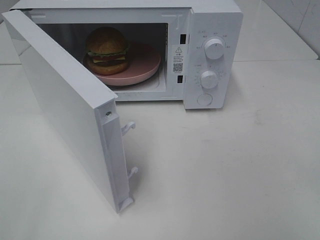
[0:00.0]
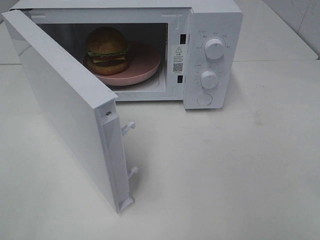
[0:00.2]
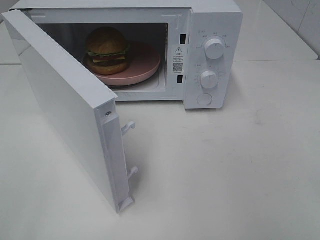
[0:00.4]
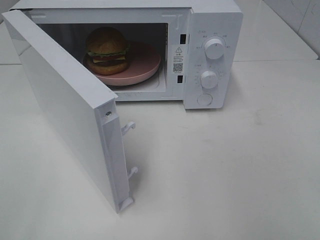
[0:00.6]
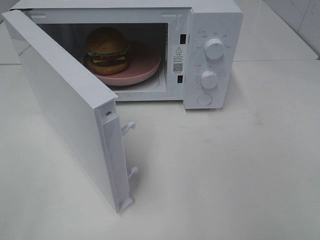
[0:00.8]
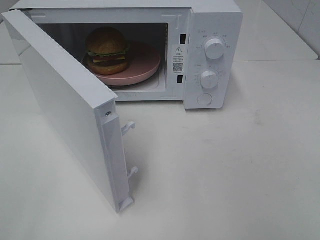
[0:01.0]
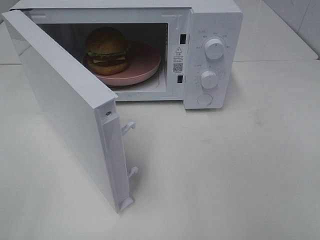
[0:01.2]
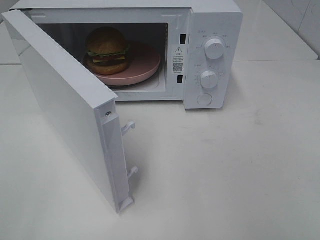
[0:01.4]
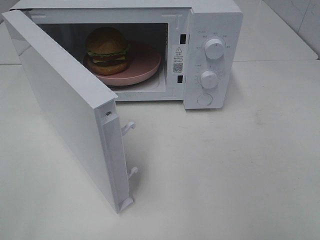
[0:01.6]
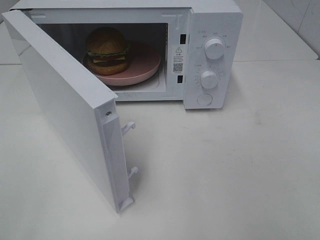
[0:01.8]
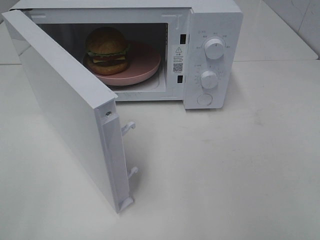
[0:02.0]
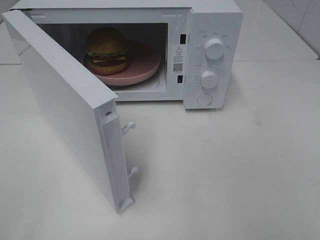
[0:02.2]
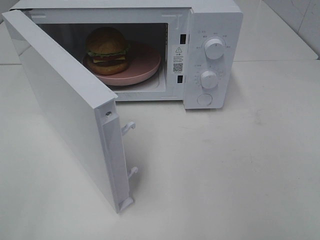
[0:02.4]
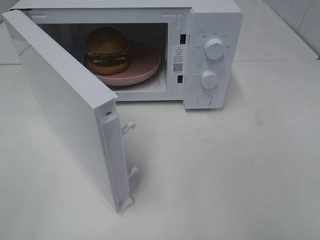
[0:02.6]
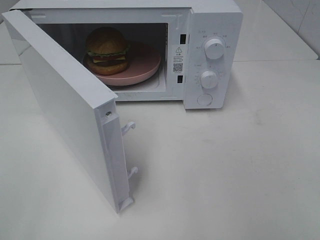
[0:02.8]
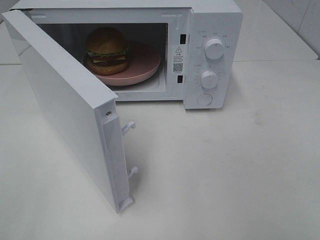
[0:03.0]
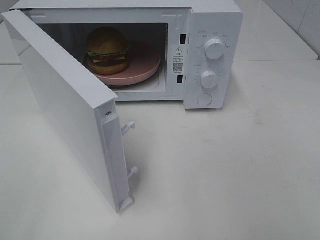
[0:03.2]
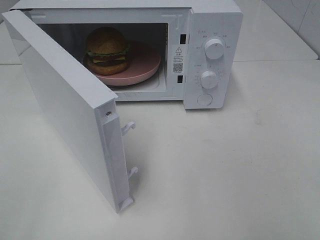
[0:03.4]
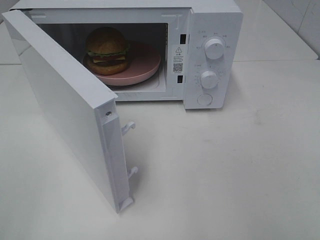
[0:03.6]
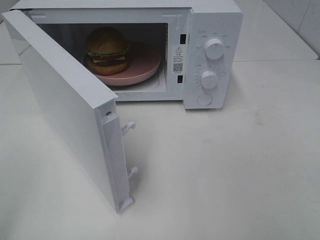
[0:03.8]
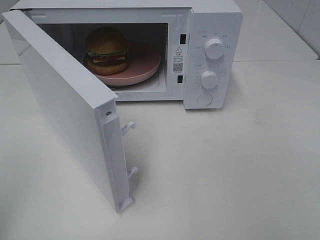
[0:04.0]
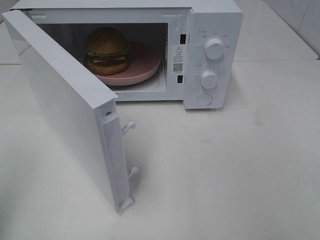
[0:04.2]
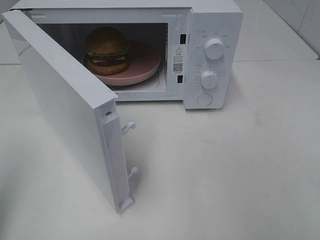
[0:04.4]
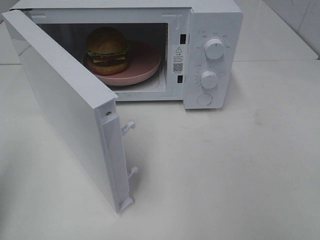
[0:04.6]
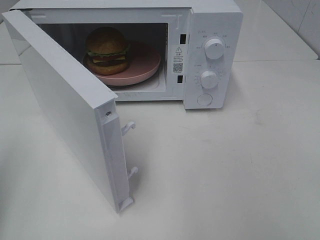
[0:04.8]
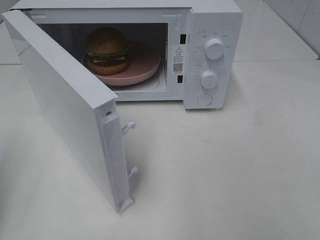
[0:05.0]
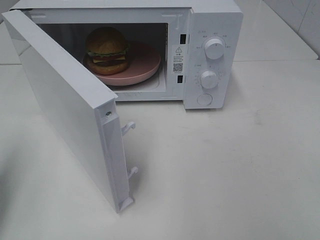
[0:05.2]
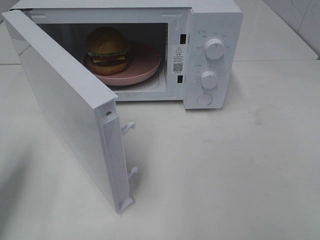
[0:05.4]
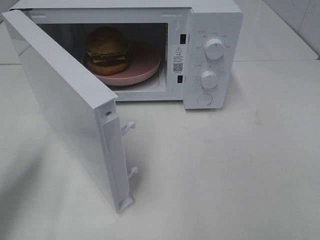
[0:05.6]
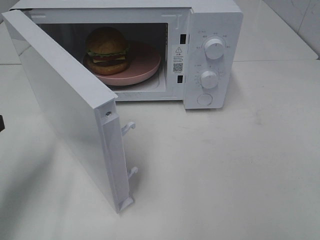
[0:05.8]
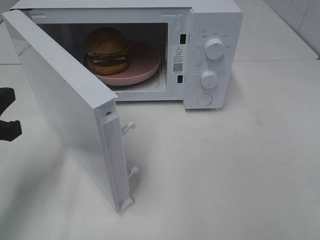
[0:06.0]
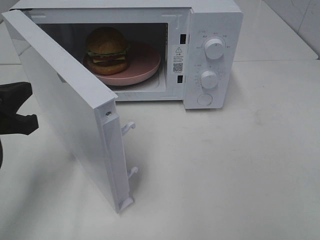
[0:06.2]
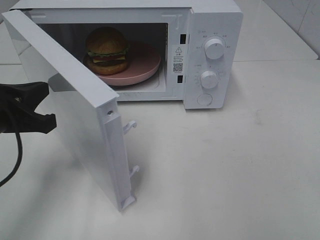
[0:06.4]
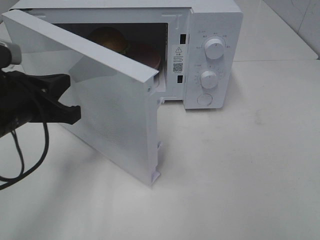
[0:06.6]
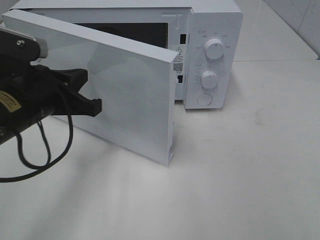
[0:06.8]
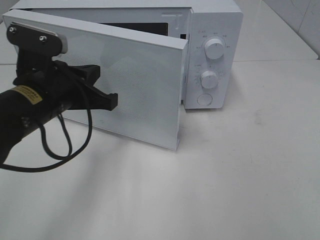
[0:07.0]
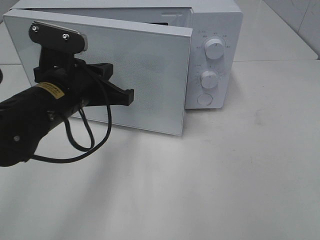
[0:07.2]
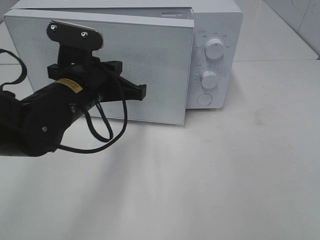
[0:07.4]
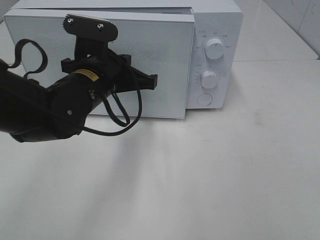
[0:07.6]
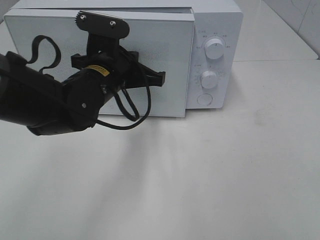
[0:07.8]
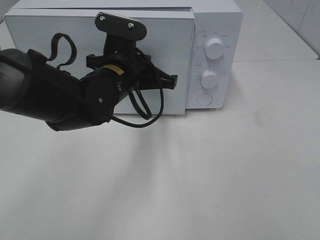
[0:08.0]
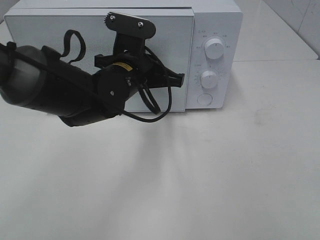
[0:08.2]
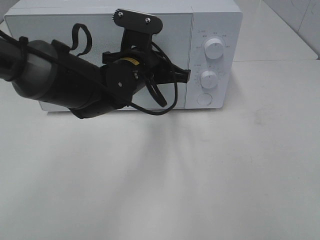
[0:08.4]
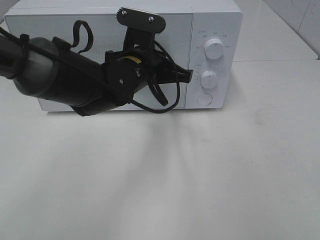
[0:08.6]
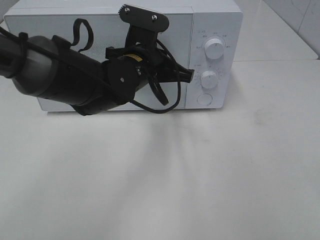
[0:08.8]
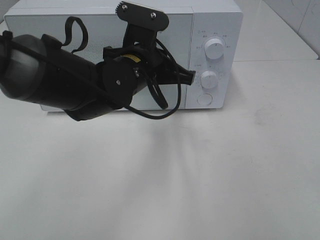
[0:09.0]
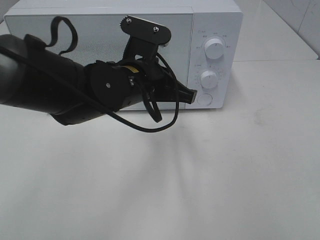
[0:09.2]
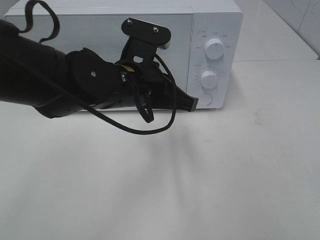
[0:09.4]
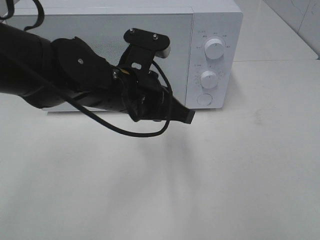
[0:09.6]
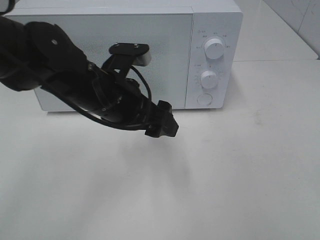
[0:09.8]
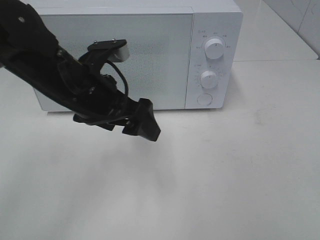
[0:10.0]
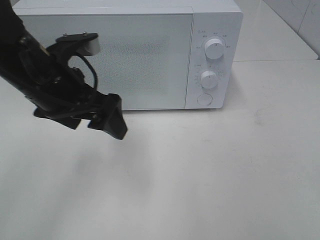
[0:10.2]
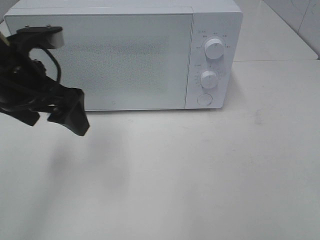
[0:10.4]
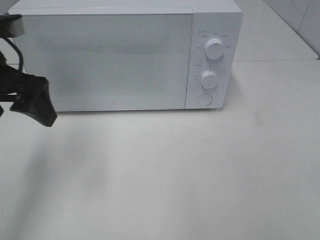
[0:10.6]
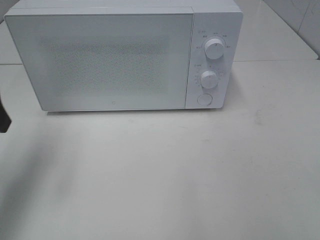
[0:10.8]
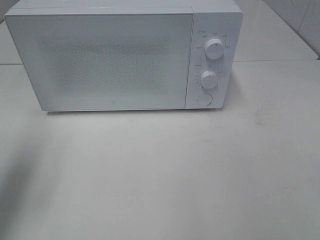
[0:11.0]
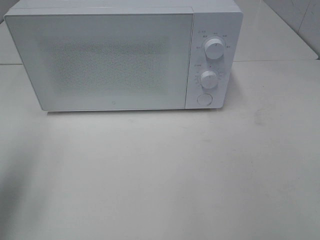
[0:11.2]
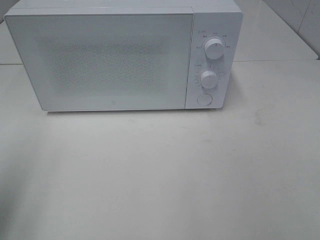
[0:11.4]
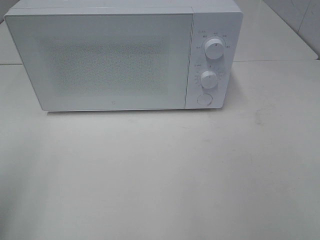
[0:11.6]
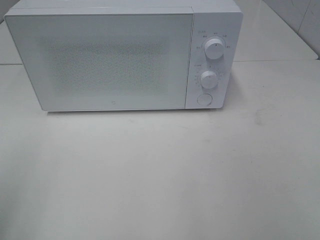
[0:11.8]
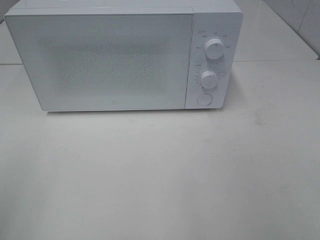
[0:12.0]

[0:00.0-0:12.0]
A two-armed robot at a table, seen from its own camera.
Task of the whole recording: Heat the burger.
Step, 0:00.0 to 0:09.4: Left hand: close the microwave door.
0:01.6 to 0:03.0: Neither gripper changes place.
0:04.4 to 0:06.0: The left gripper travels downward, forward and to the right by about 15 cm.
0:06.0 to 0:07.6: The left gripper travels to the right and forward by some 20 cm.
0:07.6 to 0:09.0: The left gripper is displaced to the right by about 5 cm.
0:09.0 to 0:10.4: The left gripper shifts some 15 cm to the left, and opens up.
0:10.4 to 0:12.0: The left gripper heads backward and to the left, covering roughly 25 cm.

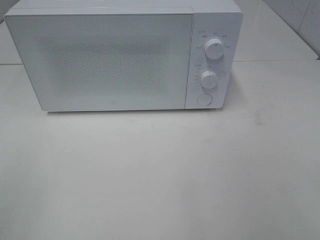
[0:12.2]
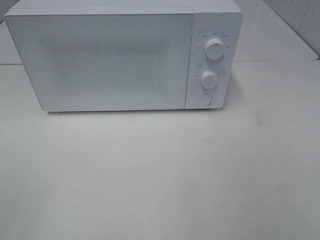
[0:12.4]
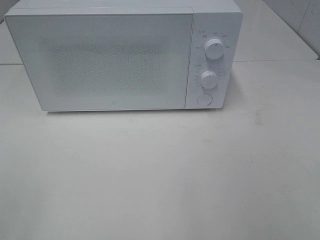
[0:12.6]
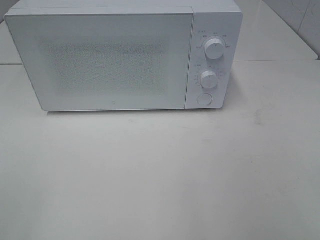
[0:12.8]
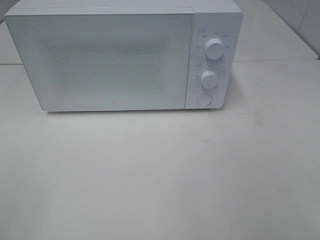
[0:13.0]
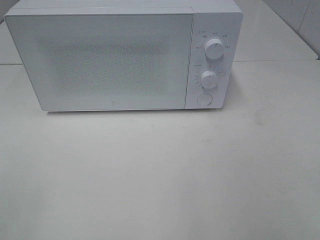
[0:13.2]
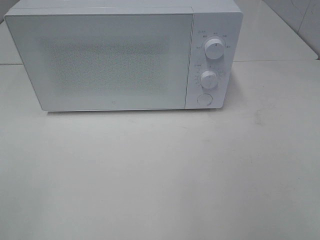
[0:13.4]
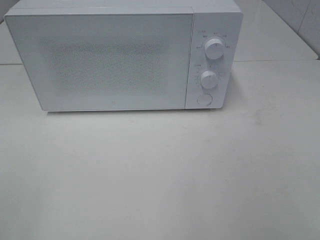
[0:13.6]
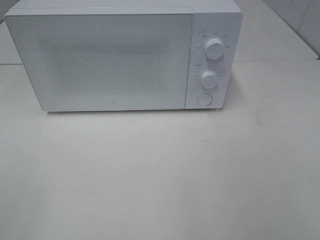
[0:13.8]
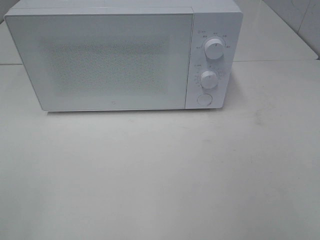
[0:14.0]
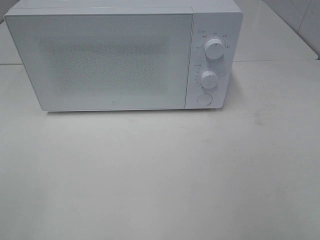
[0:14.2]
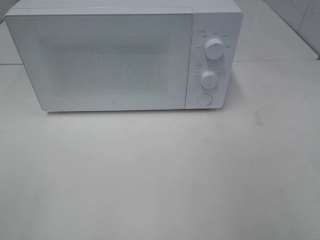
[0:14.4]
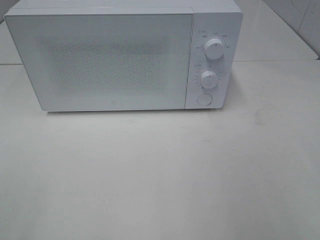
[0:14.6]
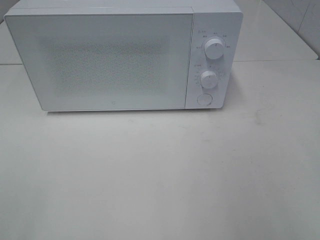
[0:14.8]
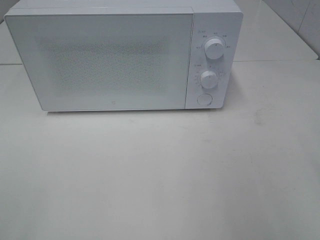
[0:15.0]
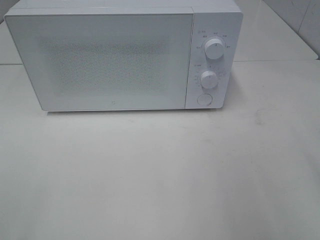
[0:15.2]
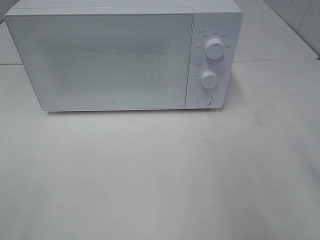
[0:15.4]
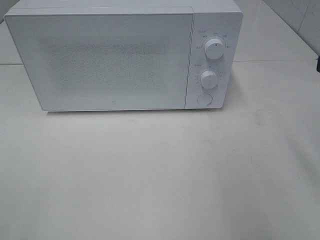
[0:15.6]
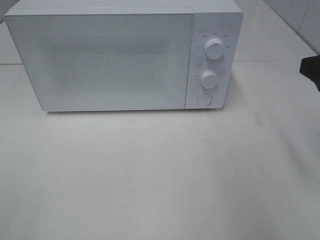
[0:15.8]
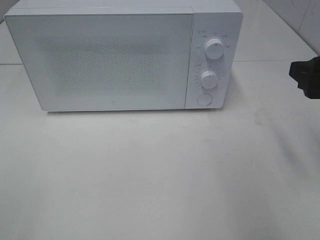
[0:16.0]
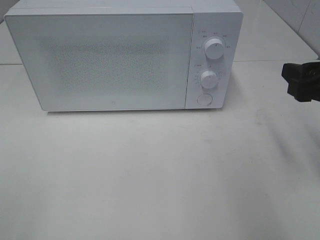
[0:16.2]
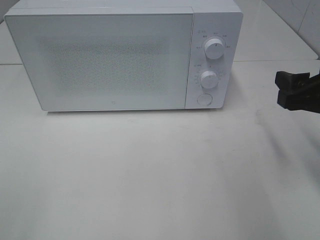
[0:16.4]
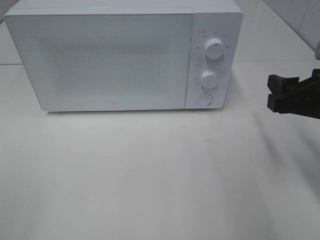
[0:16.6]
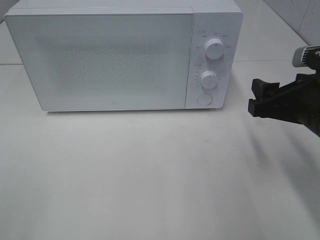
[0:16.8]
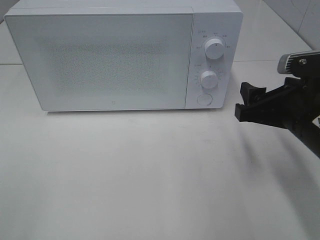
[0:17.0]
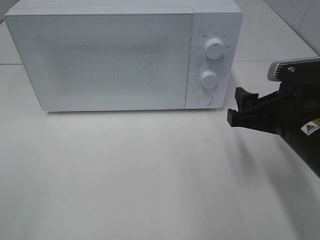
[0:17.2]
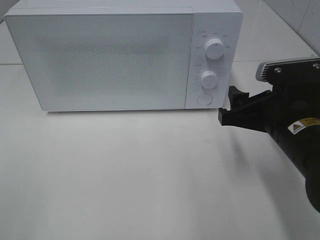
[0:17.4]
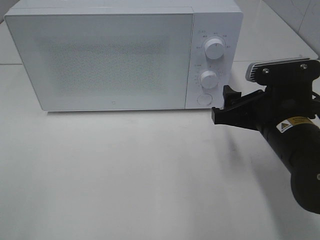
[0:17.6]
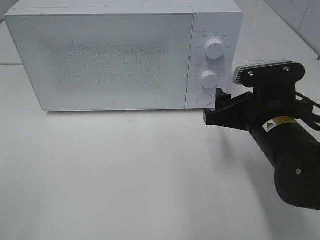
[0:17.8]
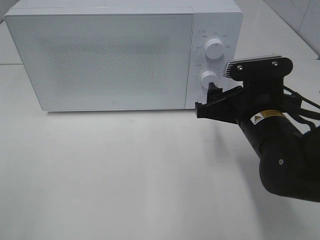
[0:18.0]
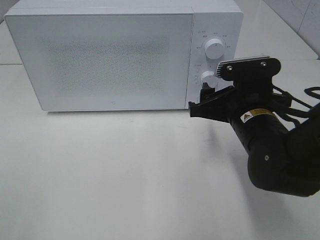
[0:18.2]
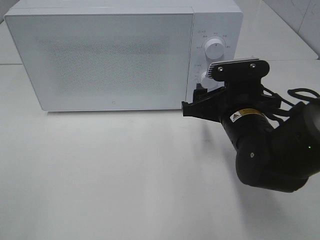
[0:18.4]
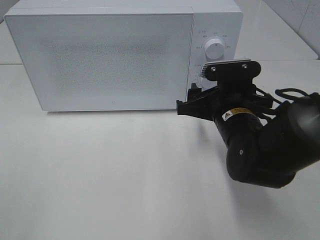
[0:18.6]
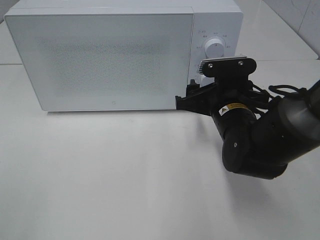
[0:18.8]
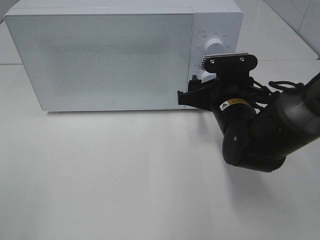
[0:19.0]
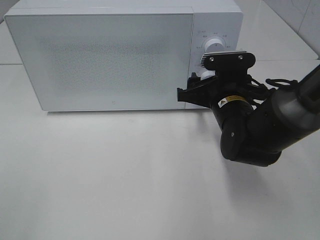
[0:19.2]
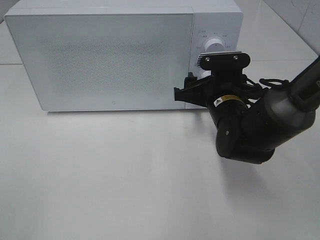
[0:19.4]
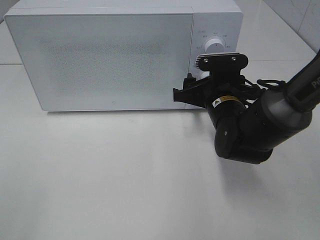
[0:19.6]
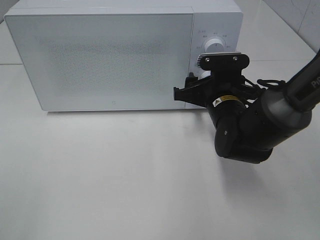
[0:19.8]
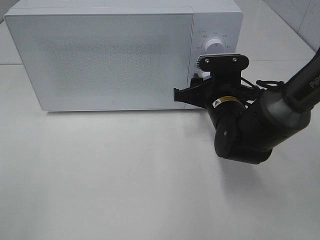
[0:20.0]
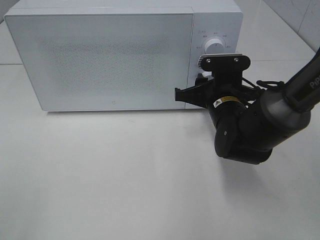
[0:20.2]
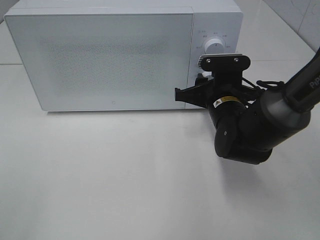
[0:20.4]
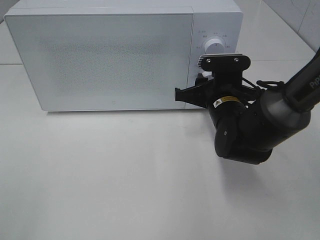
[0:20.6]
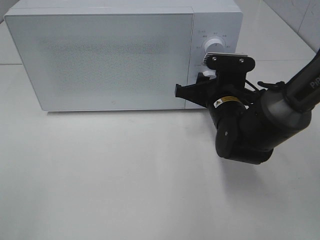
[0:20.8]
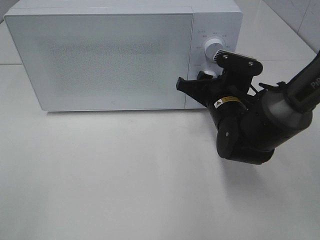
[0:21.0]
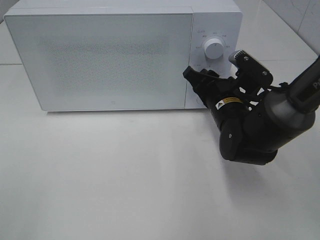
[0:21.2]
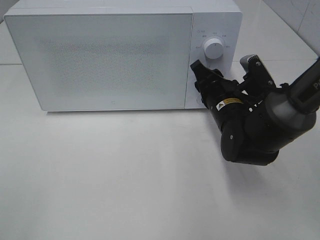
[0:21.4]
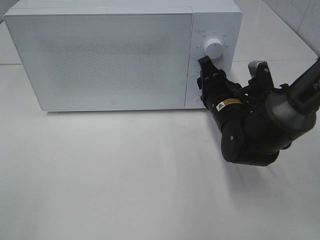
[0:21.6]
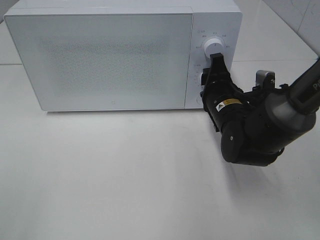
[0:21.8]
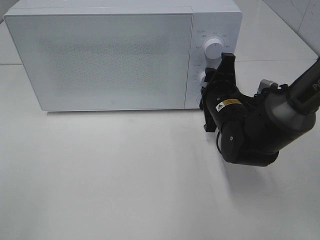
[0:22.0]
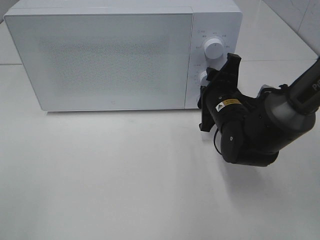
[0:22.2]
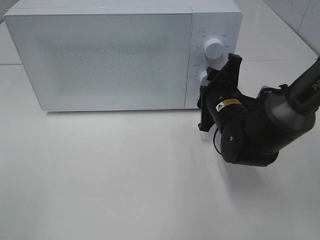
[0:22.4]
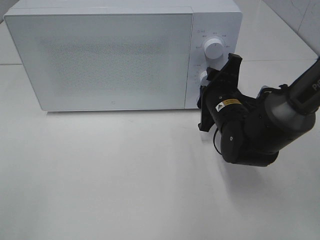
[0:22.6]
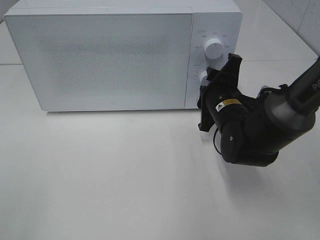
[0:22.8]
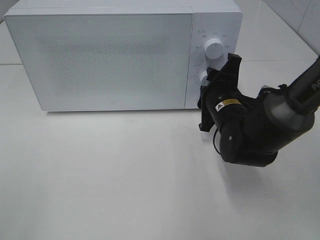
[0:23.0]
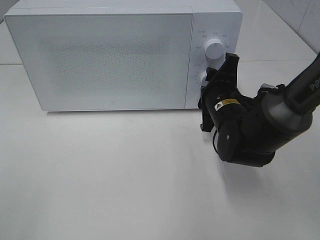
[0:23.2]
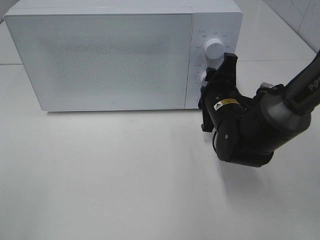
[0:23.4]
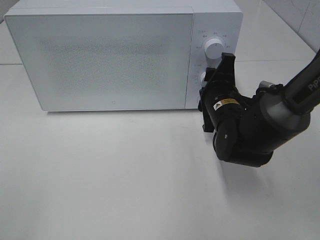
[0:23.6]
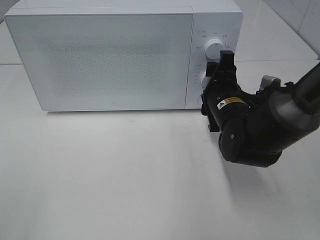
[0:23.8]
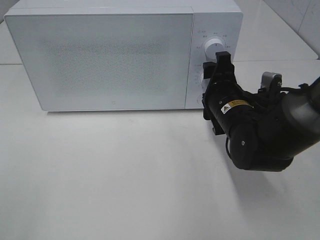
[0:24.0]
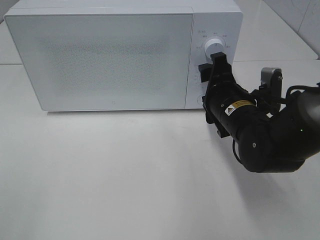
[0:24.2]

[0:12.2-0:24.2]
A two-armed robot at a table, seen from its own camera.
Task of the whole recording: Heat the burger.
Step, 0:12.2 to 0:23.8: Right hand: twist timer button.
0:15.2 to 0:16.6: The right gripper is displaced downward and forward by approximately 15 cm.
0:16.6 to 0:18.2: The right gripper shifts about 10 cm to the left and downward.
0:18.2 to 0:19.8: The right gripper travels forward by approximately 5 cm.
